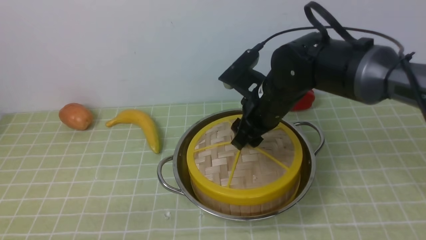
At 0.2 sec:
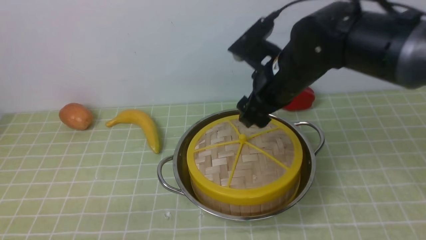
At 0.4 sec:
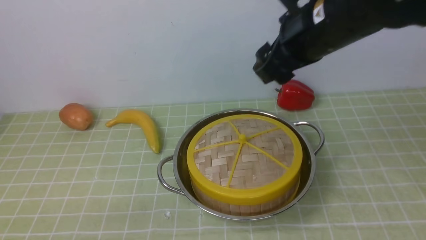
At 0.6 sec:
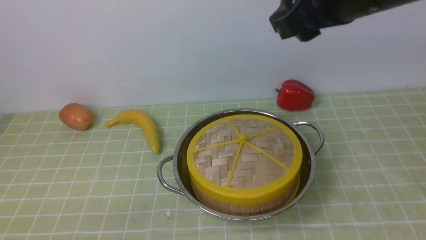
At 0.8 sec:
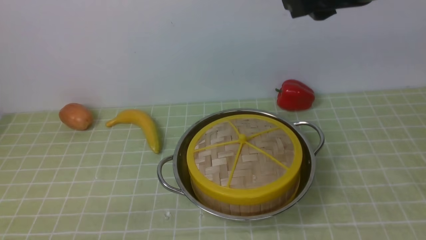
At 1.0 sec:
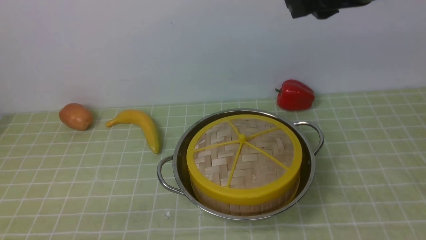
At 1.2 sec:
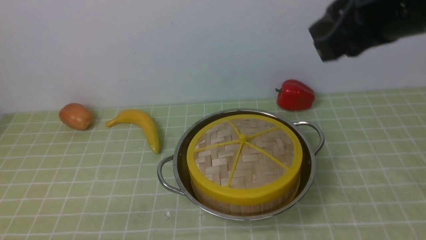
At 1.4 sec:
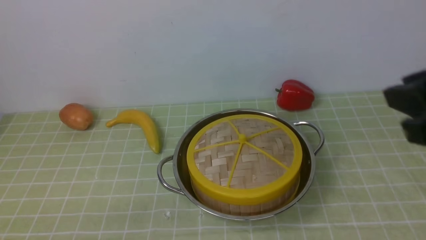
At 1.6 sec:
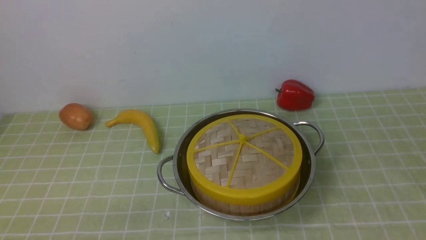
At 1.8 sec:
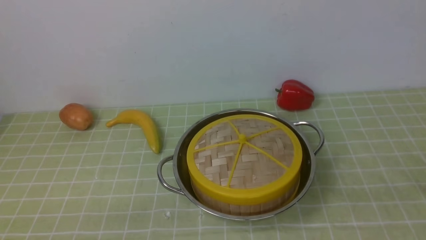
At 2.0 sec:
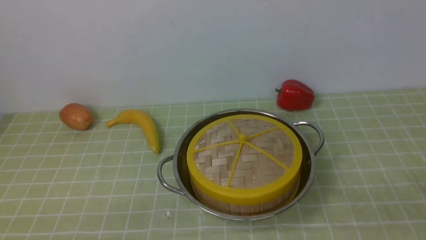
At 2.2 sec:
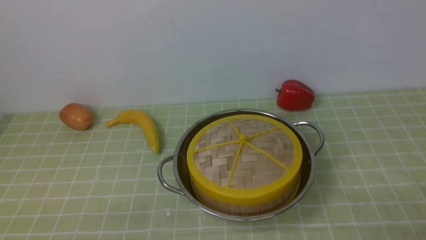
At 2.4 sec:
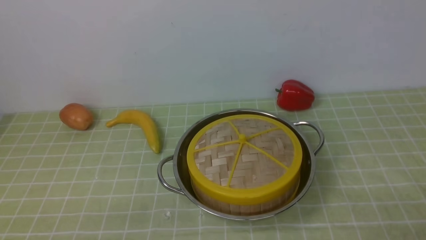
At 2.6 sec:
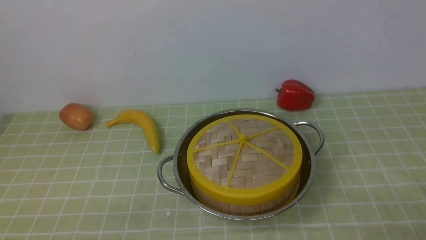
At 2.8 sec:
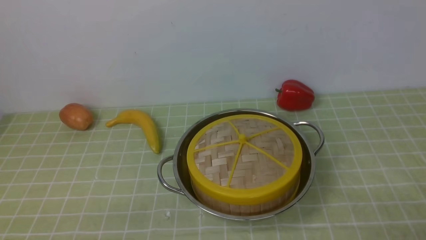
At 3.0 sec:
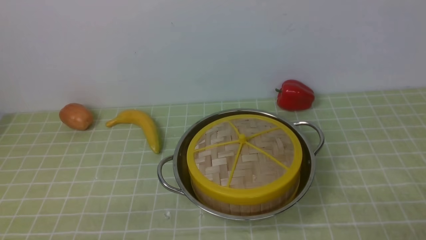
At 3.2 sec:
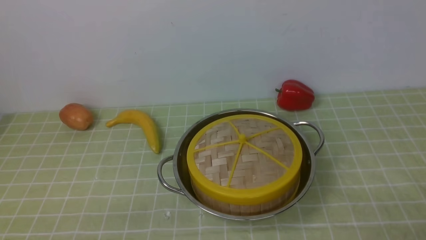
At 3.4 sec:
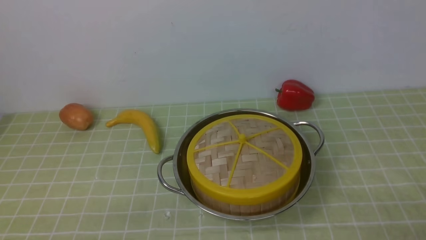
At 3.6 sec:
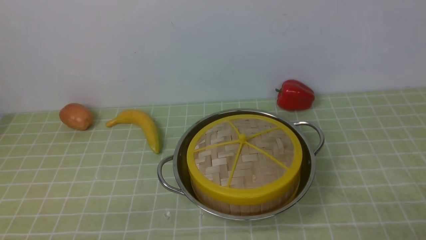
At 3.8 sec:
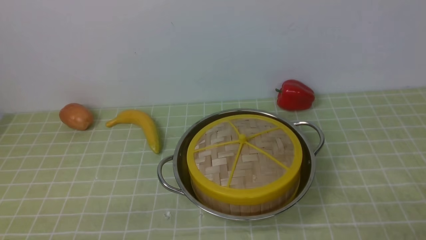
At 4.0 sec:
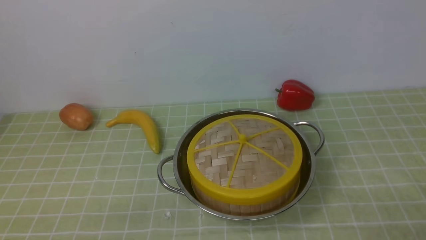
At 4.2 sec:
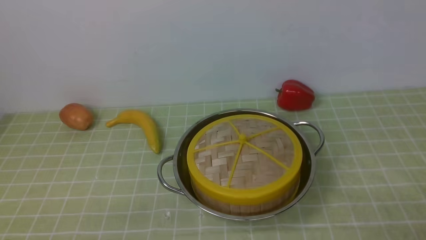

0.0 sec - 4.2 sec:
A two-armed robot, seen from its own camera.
Task of the whole recording: place the steamer in the pot on the green tablecloth, and put the lid on the steamer.
0.0 sec - 1.4 sec: The right gripper heads backward, to the right and upward, covering about 30 cm, and closes its fingers.
1.4 sec - 2.8 sec: The right gripper heads downward and backward, covering about 20 cm.
2.8 sec - 4.2 sec: Neither gripper changes place.

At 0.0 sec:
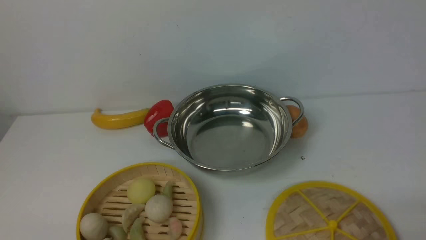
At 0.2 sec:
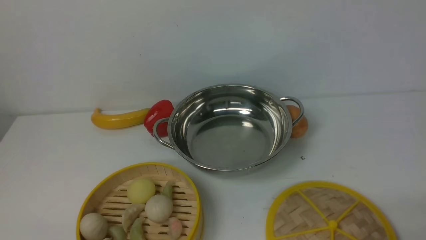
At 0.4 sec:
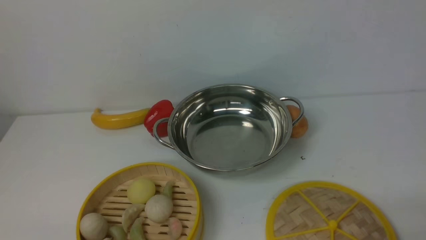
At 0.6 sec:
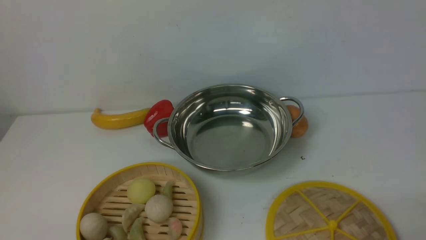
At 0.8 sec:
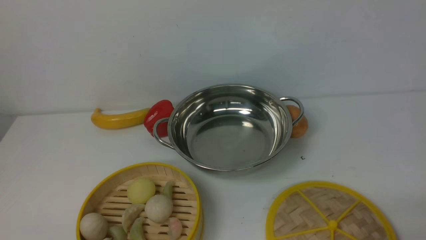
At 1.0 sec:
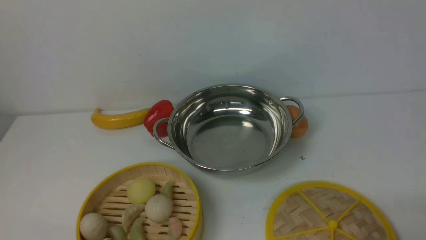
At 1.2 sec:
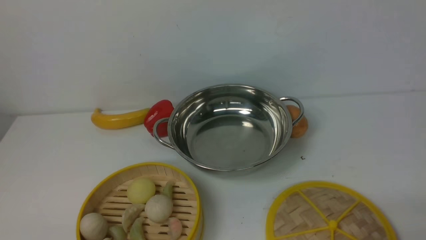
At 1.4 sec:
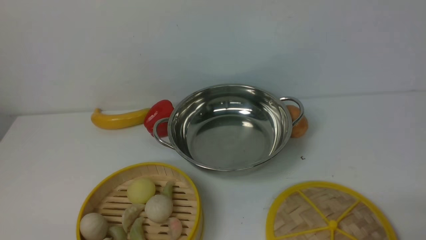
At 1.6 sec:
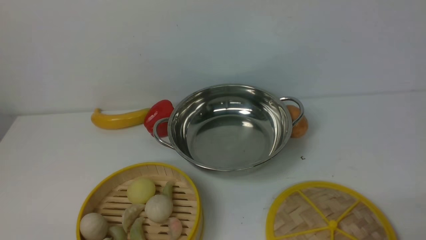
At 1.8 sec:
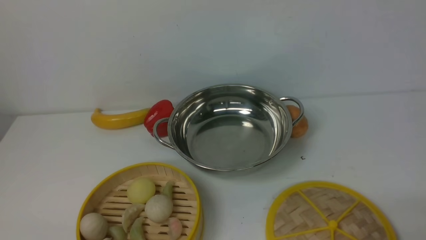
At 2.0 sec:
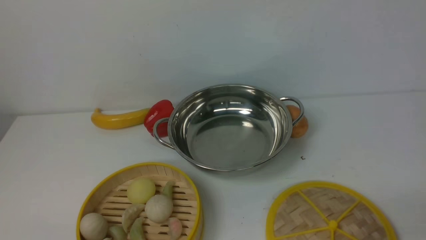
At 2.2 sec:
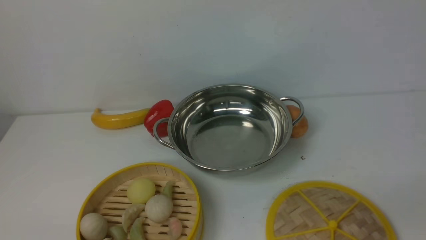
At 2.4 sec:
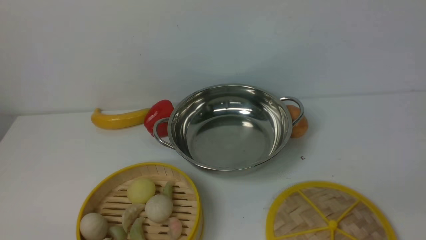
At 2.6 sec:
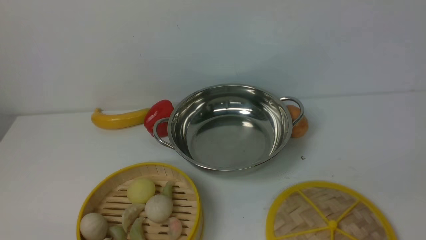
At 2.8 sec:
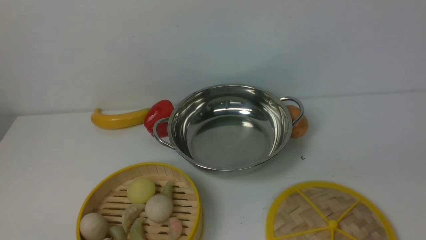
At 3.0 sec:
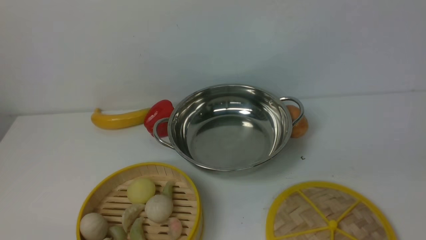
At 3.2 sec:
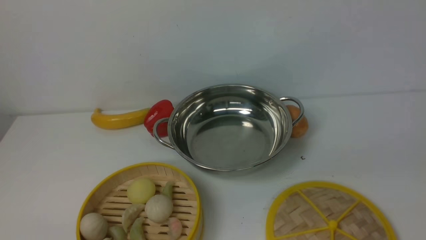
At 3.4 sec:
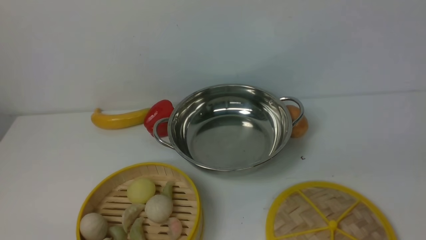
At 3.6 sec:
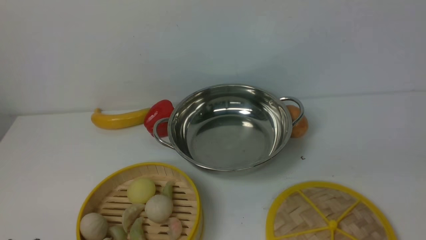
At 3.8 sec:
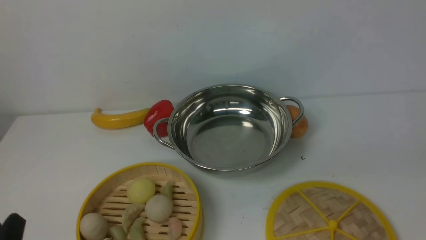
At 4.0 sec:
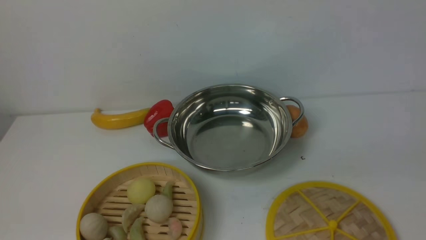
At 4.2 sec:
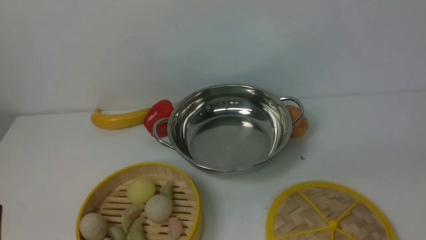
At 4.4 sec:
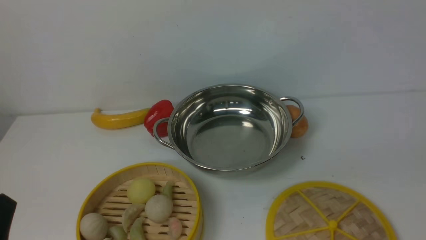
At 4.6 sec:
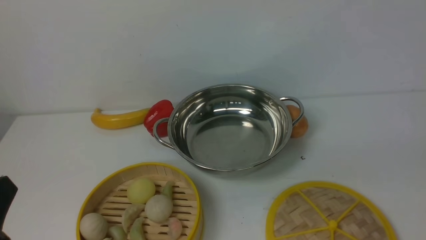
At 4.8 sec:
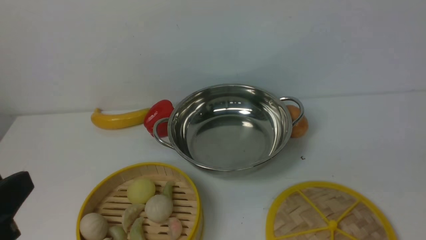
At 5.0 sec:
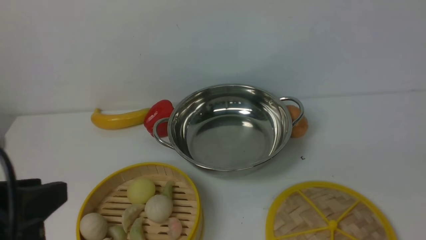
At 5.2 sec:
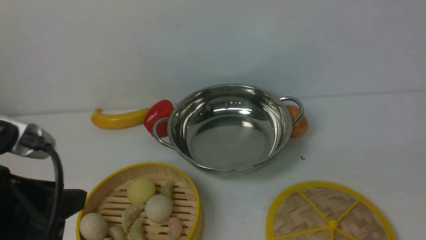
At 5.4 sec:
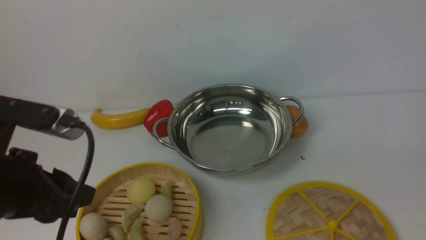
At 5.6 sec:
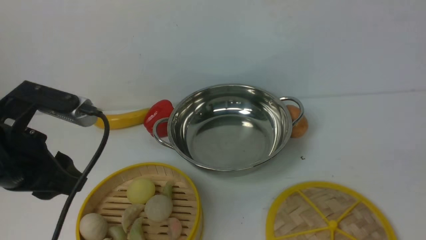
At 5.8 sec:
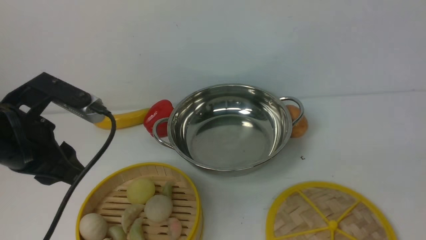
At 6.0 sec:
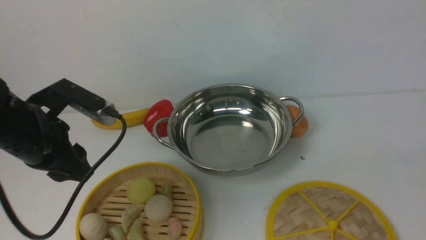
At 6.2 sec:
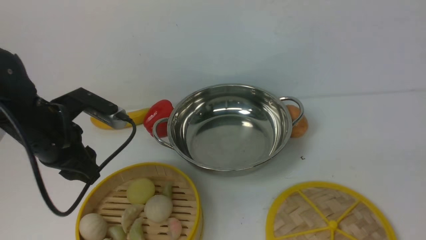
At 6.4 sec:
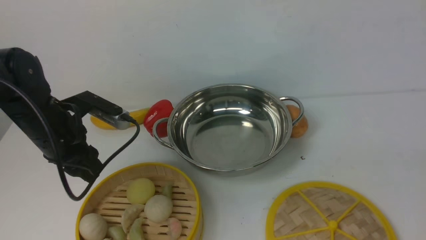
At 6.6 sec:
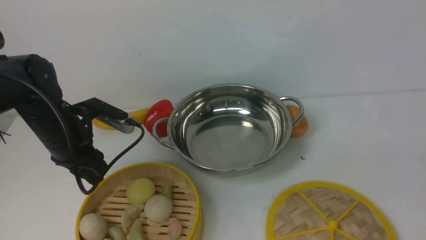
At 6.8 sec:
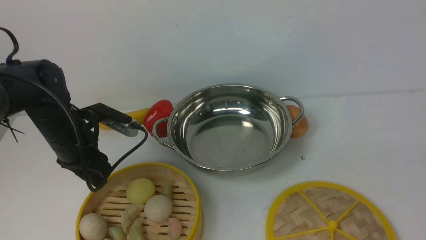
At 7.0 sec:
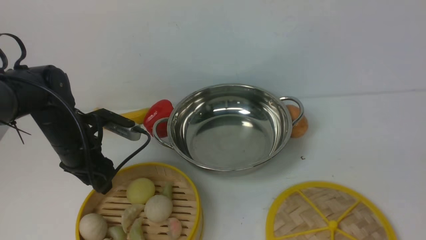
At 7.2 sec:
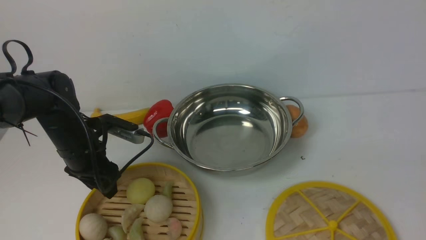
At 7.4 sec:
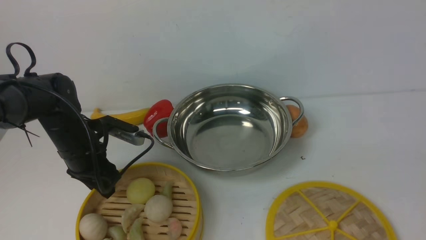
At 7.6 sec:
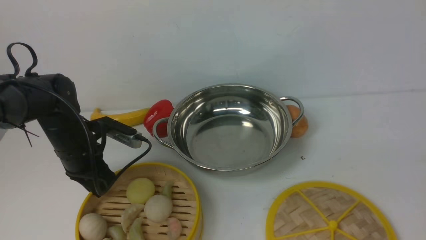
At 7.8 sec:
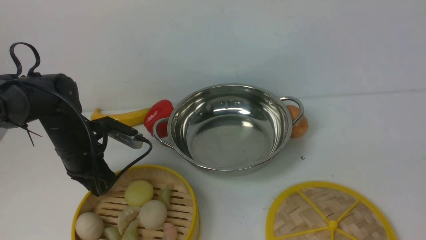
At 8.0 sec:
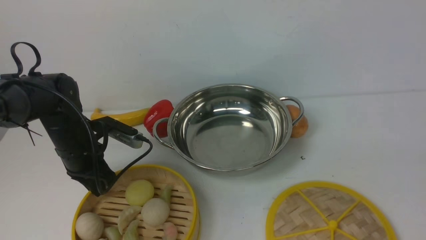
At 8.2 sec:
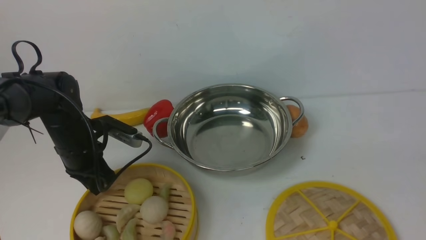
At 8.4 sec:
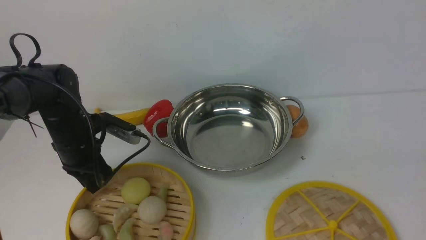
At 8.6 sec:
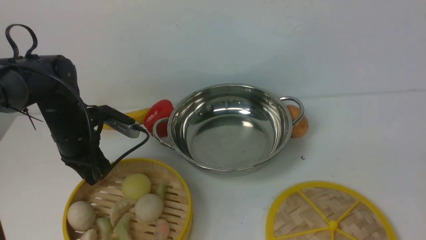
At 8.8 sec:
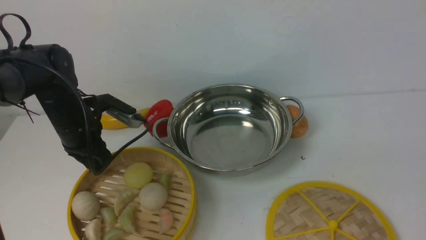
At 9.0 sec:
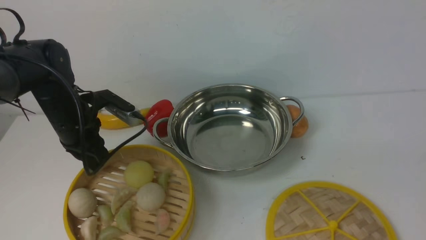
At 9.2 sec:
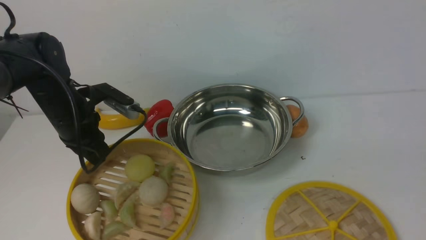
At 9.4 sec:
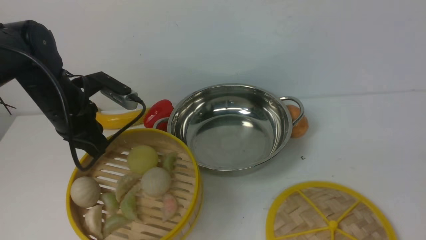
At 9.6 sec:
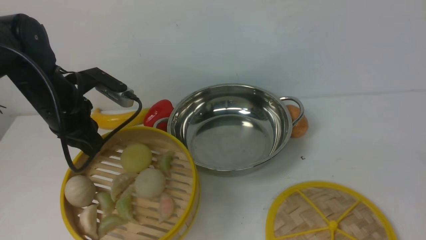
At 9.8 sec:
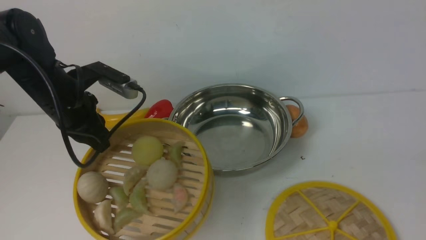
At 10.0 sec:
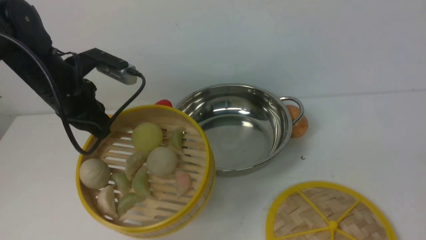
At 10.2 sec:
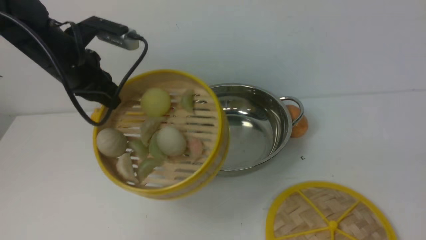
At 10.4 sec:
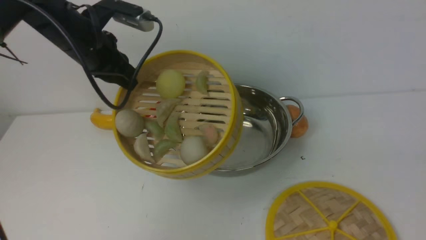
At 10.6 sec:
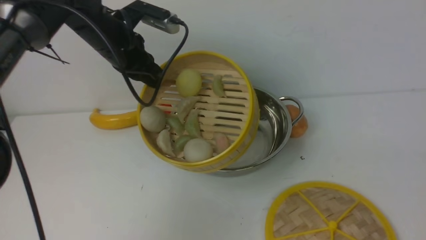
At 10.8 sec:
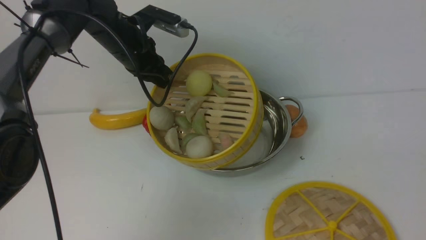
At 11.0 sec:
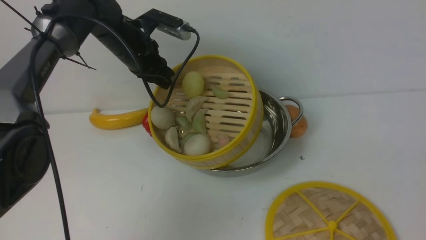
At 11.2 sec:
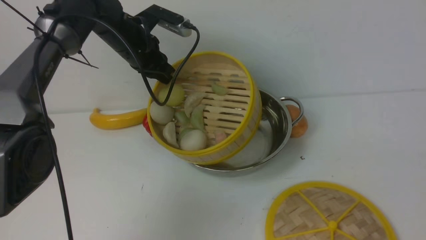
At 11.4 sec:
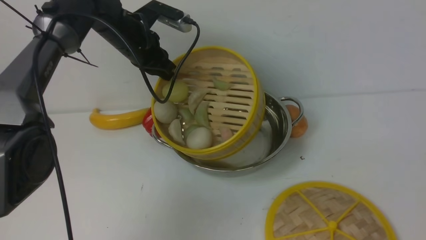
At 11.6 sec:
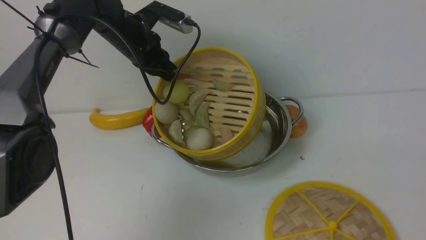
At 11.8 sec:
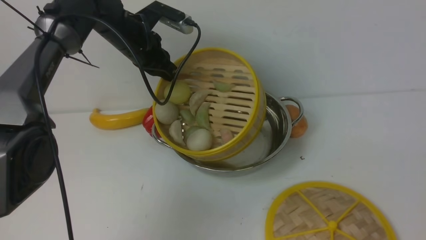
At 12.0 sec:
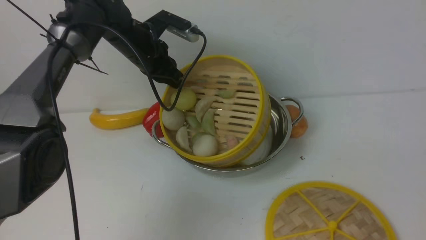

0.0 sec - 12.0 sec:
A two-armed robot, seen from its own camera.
Task of the whole recording: place the steamer in the pot on the white table, and put the lid on the steamer.
Step, 0.0 sec - 8.8 sec: use the left arm to lift the steamer closest to it.
4.4 sec - 6.0 sec: The left gripper is displaced forward by some 20 cm.
6.0 sec - 7.6 sec: The left gripper travels downward and forward by some 15 cm.
7.6 sec - 9.0 sec: The left gripper closes up.
9.0 sec - 10.4 sec: The left gripper moves upward, about 10 cm.
10.4 sec - 12.0 sec: The left gripper moves forward and to the right, about 10 cm.
